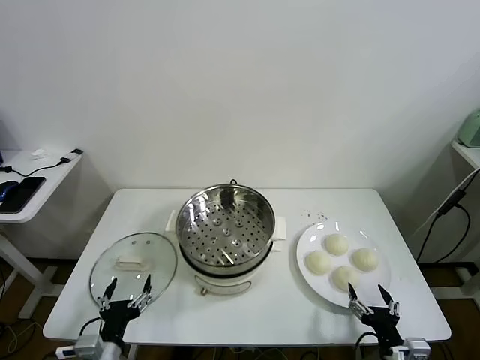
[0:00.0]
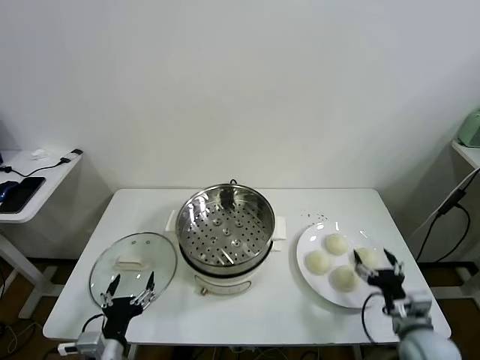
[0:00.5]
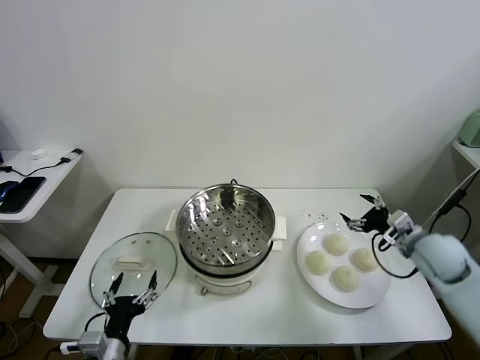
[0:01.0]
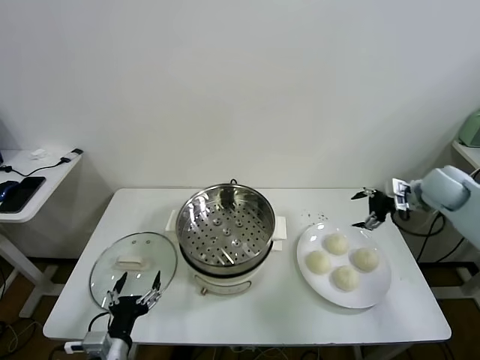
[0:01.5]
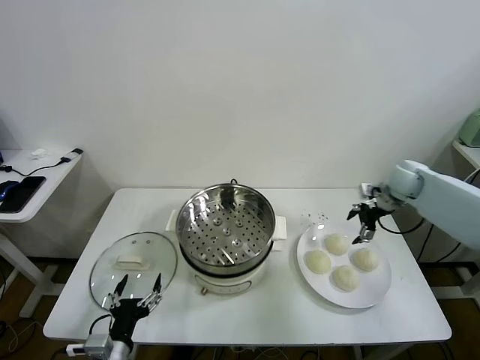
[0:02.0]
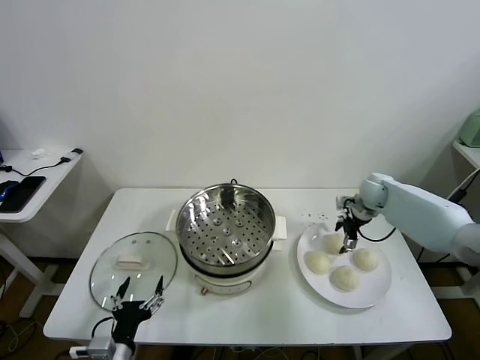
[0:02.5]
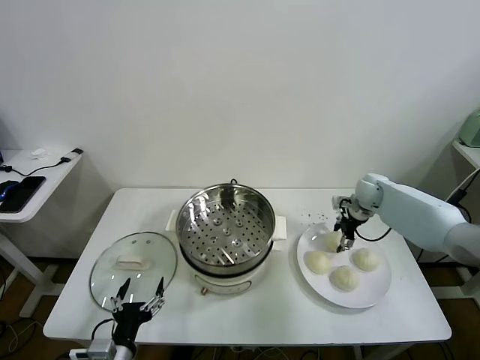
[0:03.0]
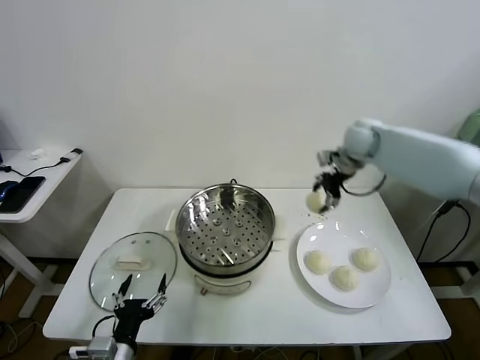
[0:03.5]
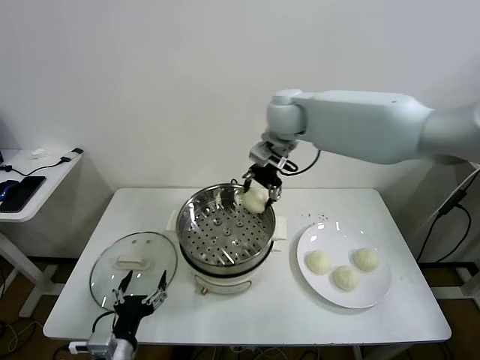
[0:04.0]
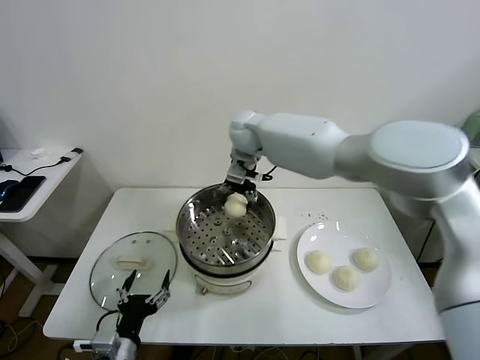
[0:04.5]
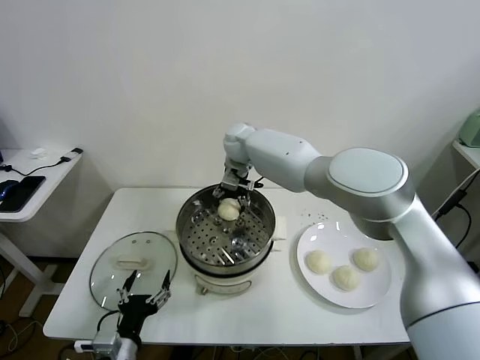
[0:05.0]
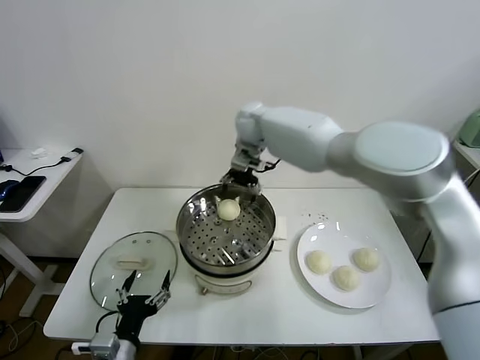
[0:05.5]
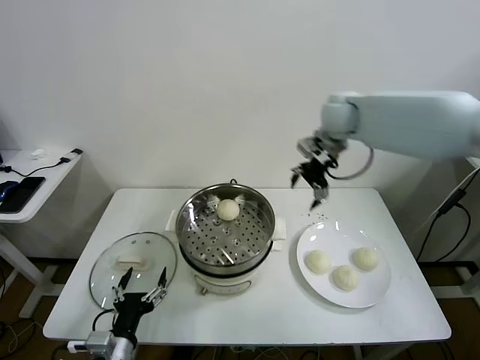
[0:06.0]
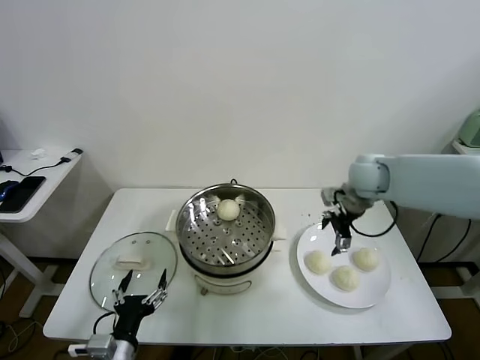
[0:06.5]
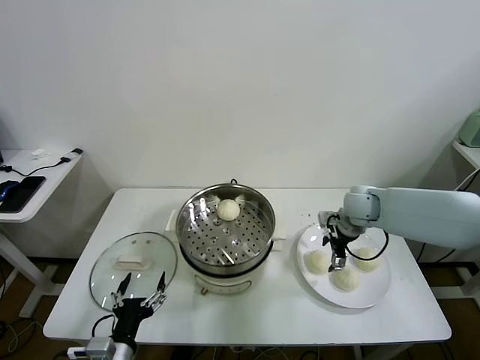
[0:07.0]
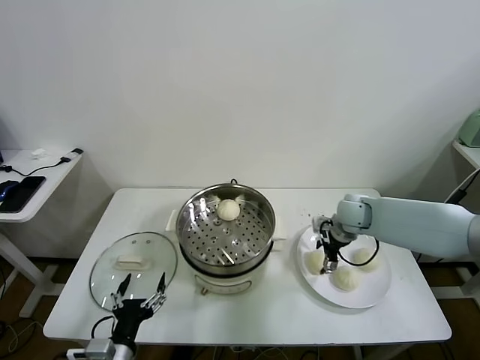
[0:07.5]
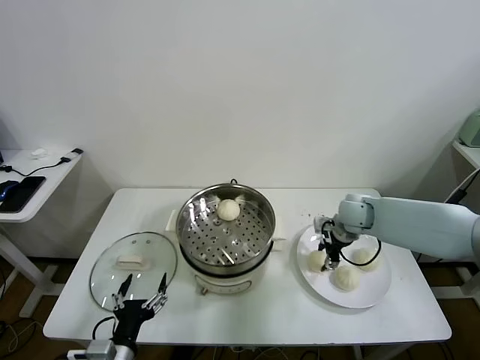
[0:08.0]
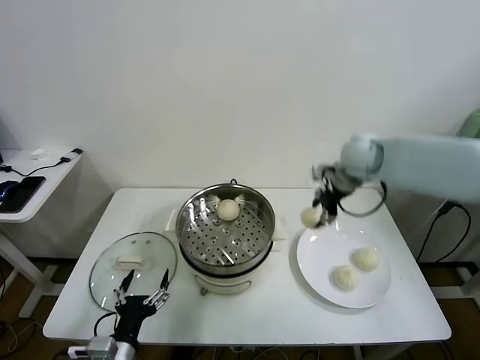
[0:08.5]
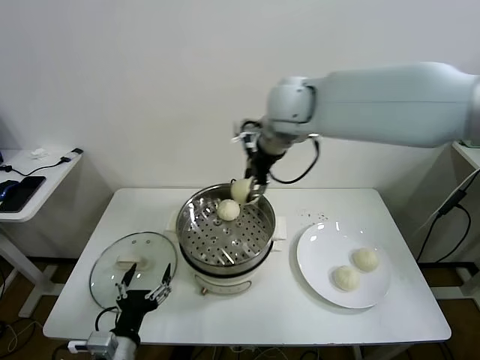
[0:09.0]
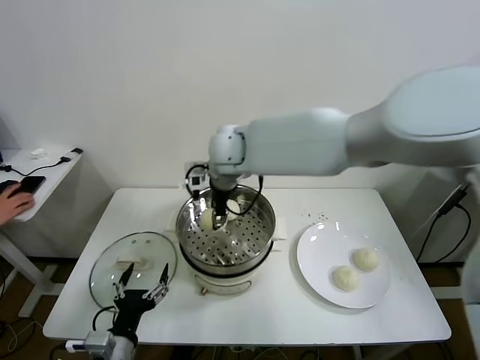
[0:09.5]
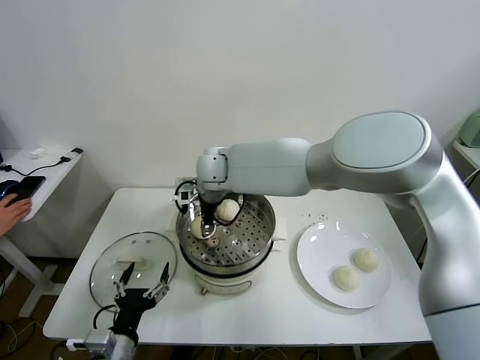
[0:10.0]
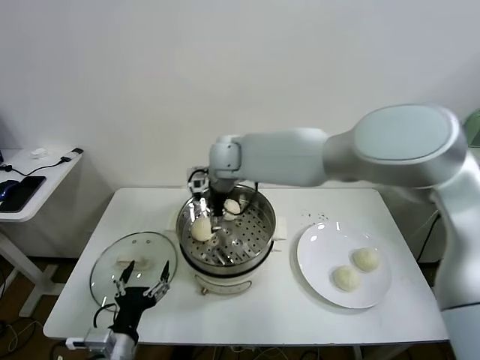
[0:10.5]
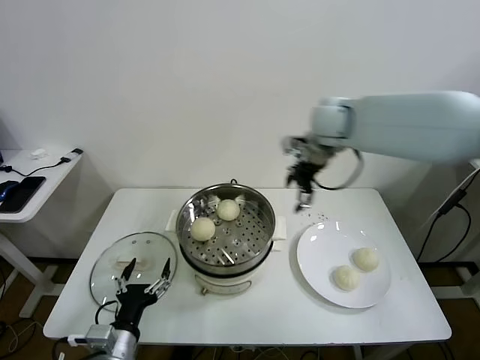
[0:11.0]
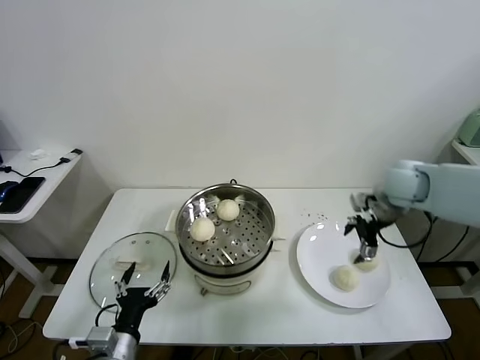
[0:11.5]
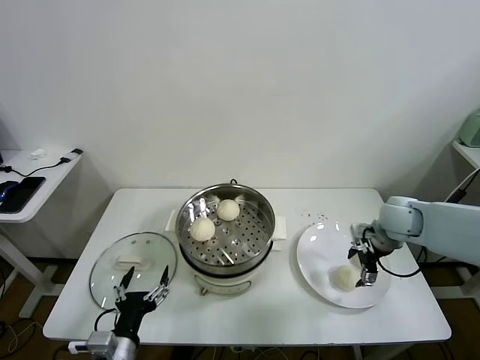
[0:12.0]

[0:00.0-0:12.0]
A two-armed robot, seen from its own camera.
Task of the whole recording: take steamed baozi put them in steamer.
Step, 0:00.0 to 0:02.5: Grasp the baozi in the plate with right gripper.
Step, 0:03.0 to 0:05.0: Place the baozi on the steamer with right gripper.
Step, 0:05.5 to 0:07.5: Grasp the baozi in the plate with right gripper.
Step, 0:08.0 to 0:10.0: Place the baozi on the steamer with right gripper.
0:02.0 to 0:04.0: The right gripper goes roughly 40 cm to the left and upward, and closes.
0:04.0 to 0:06.0: The right gripper moves to the right, some 20 cm, and opens.
0:06.0 to 0:08.0: The right gripper is displaced downward by approximately 20 cm, and closes.
0:08.0 to 0:10.0: The right gripper heads to the left, covering some 35 cm.
0:10.0 to 0:12.0: The right gripper is displaced to the right by roughly 40 cm, and opens up.

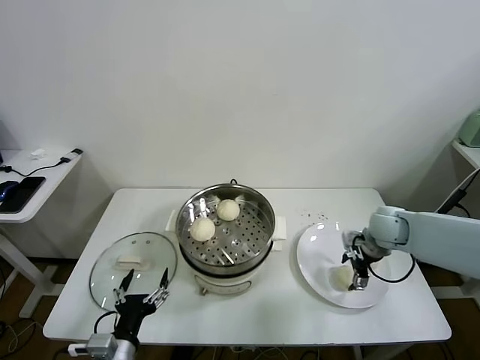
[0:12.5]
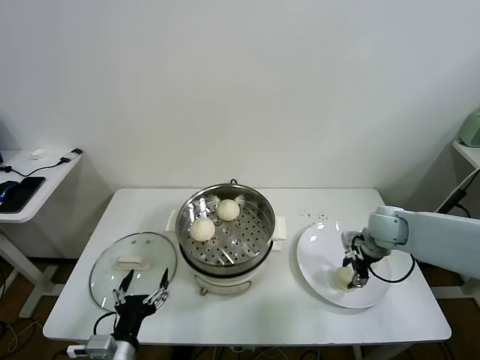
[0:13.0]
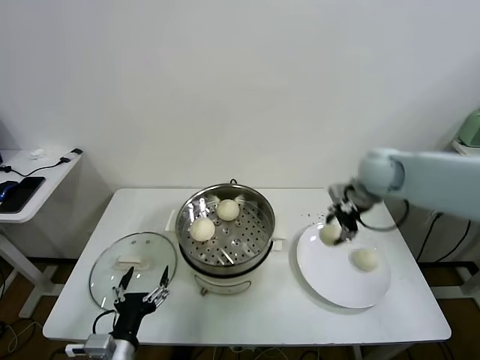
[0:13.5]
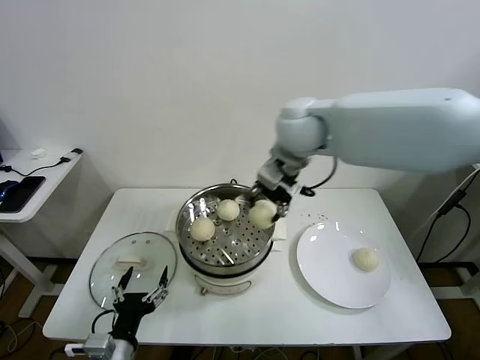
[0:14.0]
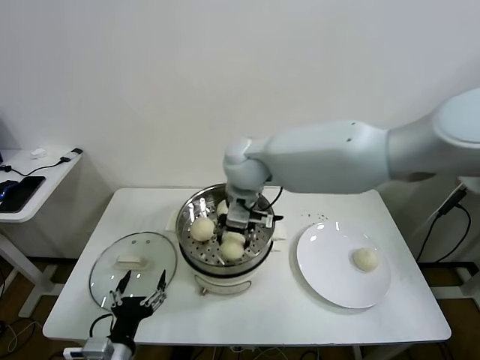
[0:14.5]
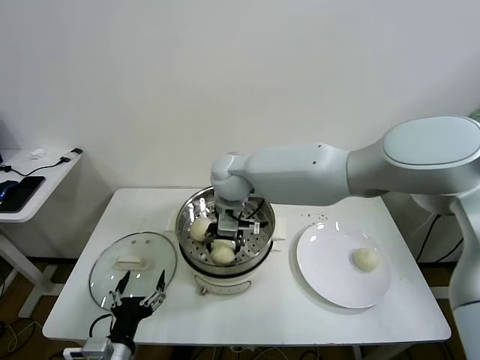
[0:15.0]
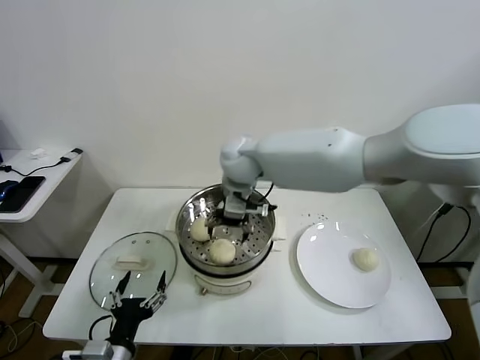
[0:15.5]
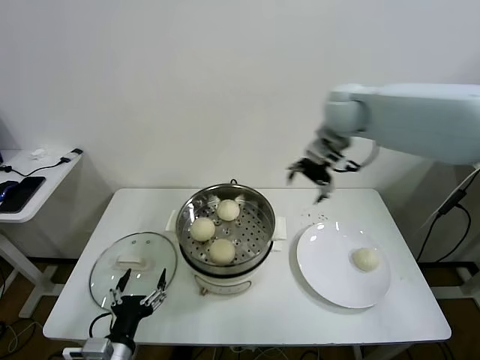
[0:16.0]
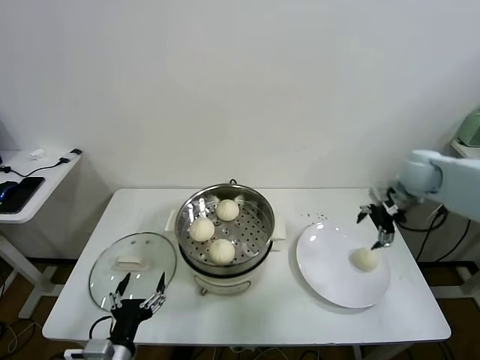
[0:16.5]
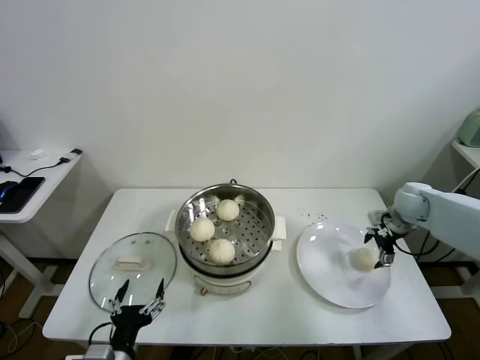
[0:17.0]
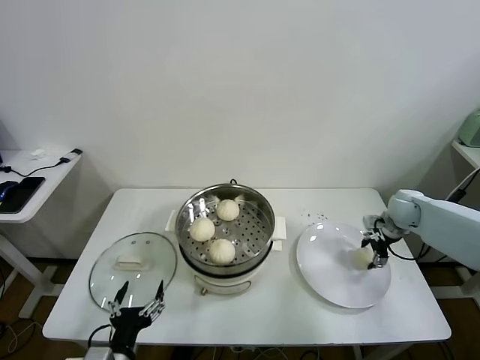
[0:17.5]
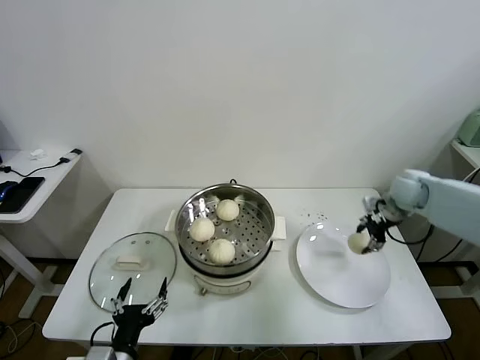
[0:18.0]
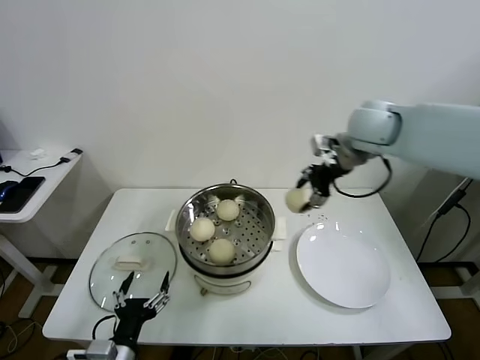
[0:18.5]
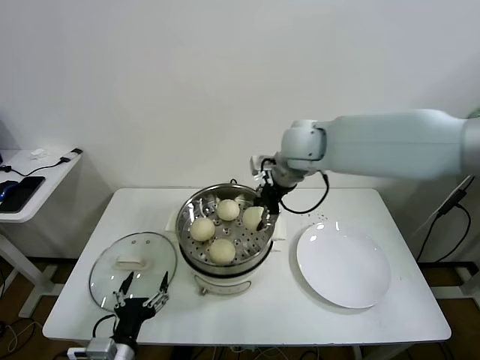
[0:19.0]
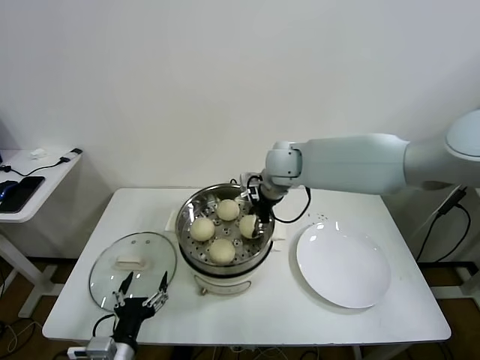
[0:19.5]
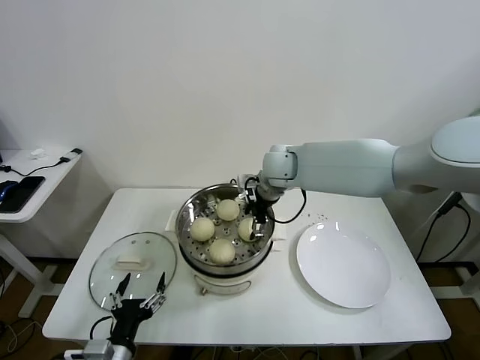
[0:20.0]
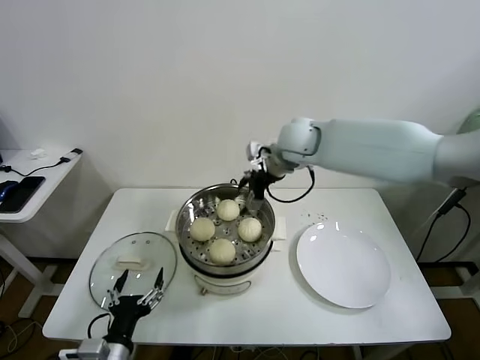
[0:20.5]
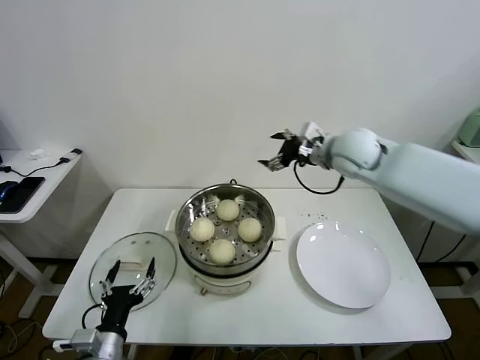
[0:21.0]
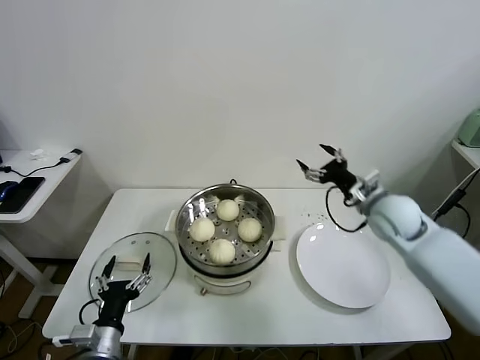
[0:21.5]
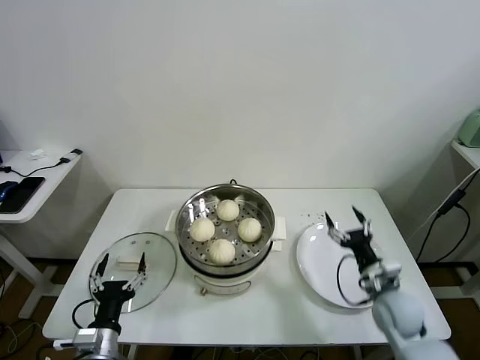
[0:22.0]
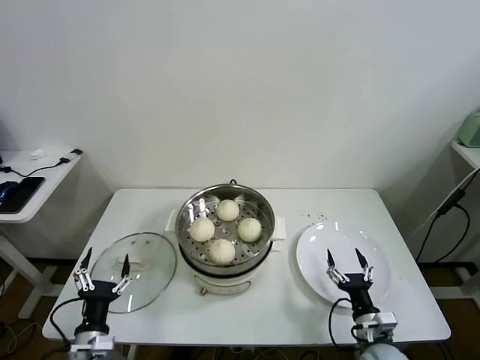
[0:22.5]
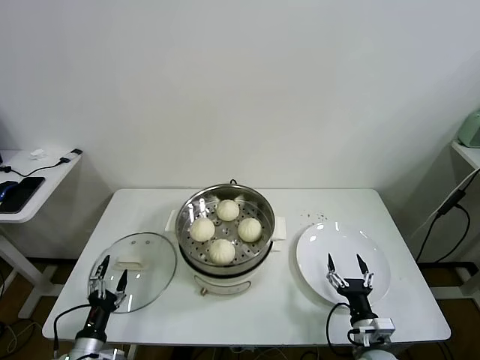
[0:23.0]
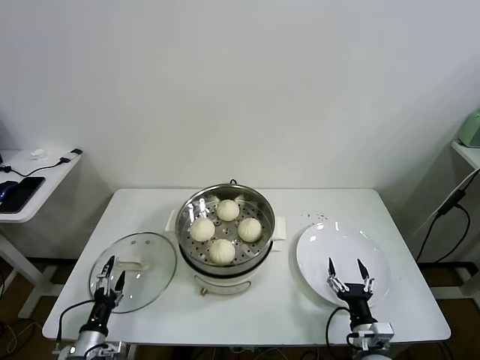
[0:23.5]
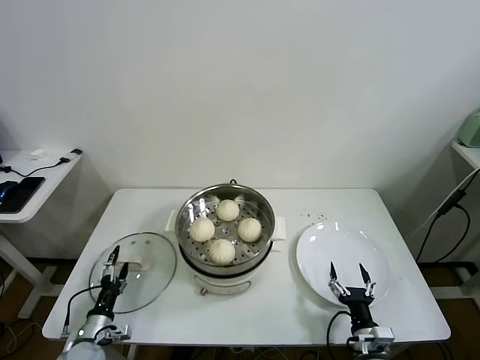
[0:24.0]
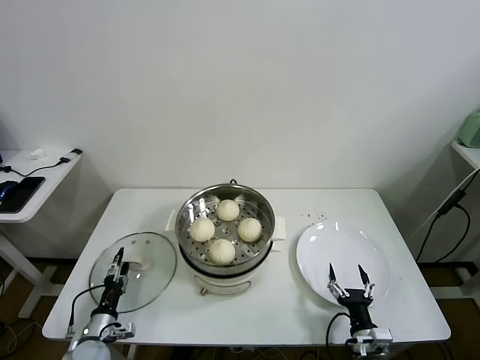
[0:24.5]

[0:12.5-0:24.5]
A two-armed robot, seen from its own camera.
Task of the whole recording: take steamed baozi put them in steamer.
Step, 0:13.0 to 0:15.0: Place the baozi on the steamer with right gripper.
Step, 0:15.5 to 0:17.0: Grasp the baozi in the plate with right gripper.
Step, 0:17.5 to 0:19.5: Place the baozi on the steamer with right gripper.
0:12.5 to 0:14.5: The right gripper goes about 40 cm to the left and upward, and closes its fingers.
0:14.5 to 0:16.5: The right gripper is displaced to the right by some 40 cm, and opens its fingers.
0:16.5 to 0:18.5: The right gripper moves to the left and upward, about 20 cm, and closes its fingers.
0:18.5 to 0:20.5: The right gripper travels to the left and downward by approximately 15 cm, and opens.
0:20.5 to 0:22.5: The left gripper moves to the left and downward, about 10 cm. Meanwhile the right gripper is displaced downward, backward and to the right by roughly 50 cm.
0:22.5 to 0:24.5: The left gripper shifts some 15 cm downward, forward and to the left.

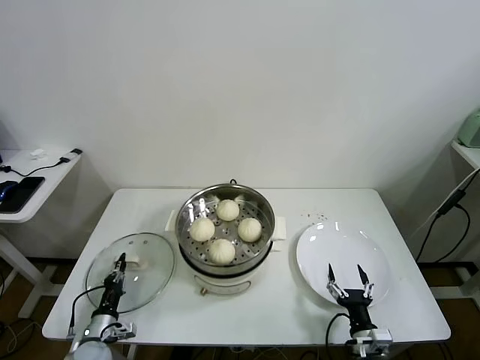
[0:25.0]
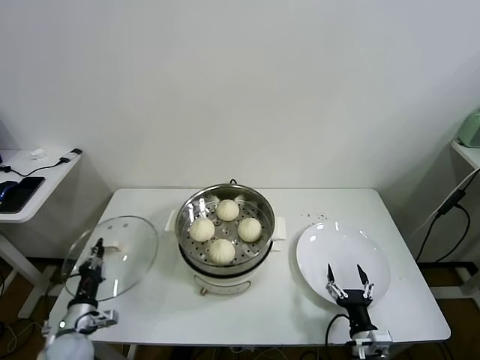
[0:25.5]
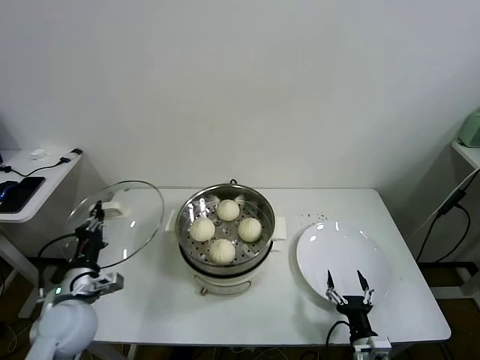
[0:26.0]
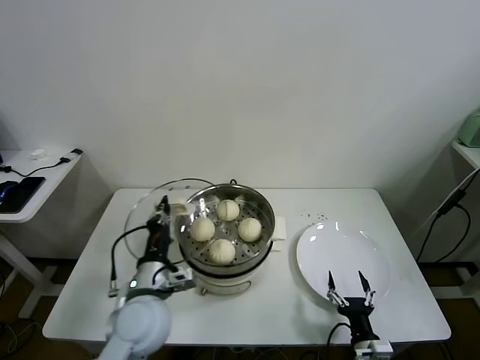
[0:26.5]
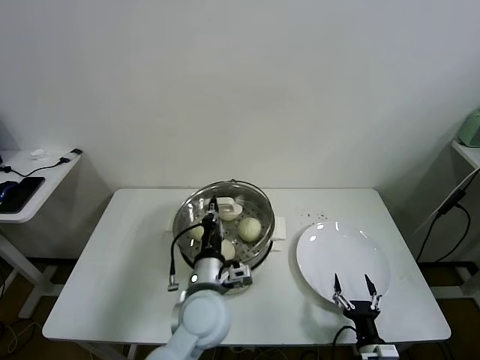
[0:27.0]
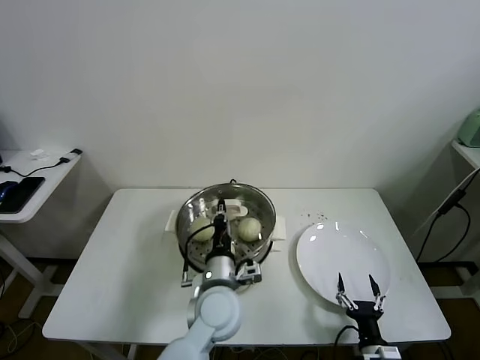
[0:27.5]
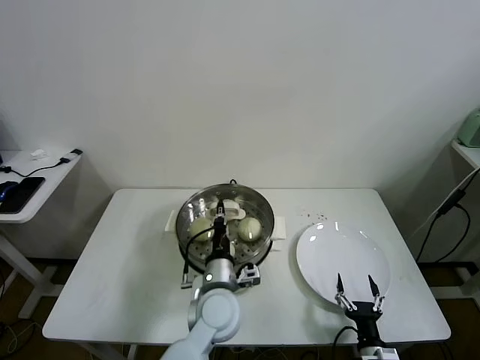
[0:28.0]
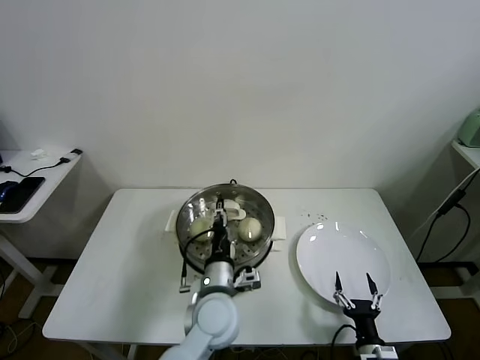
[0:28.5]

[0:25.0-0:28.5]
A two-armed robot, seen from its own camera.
Task of the whole recording: take steamed baozi put them in steamer.
0:25.0 to 0:27.0: The left gripper moves to the right and upward, some 35 cm.
0:27.0 to 0:28.5: The left gripper opens up.
